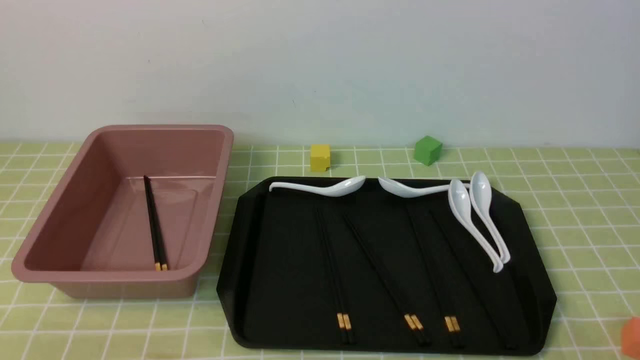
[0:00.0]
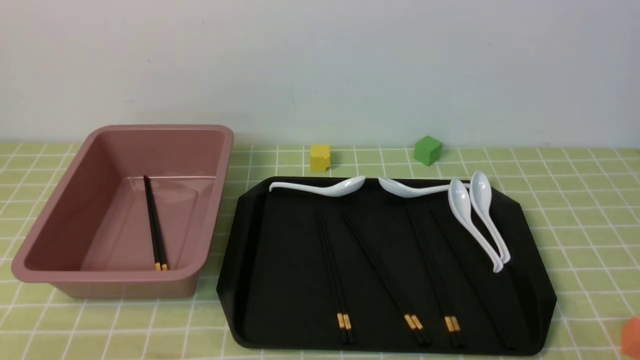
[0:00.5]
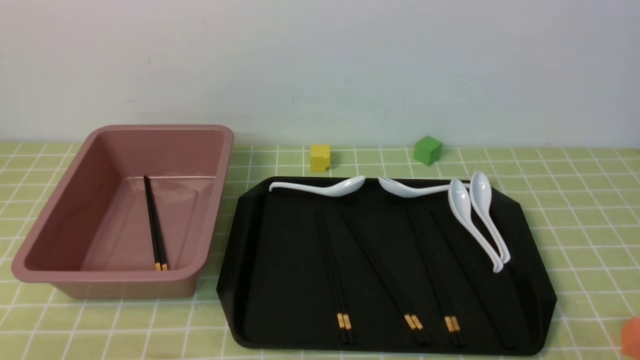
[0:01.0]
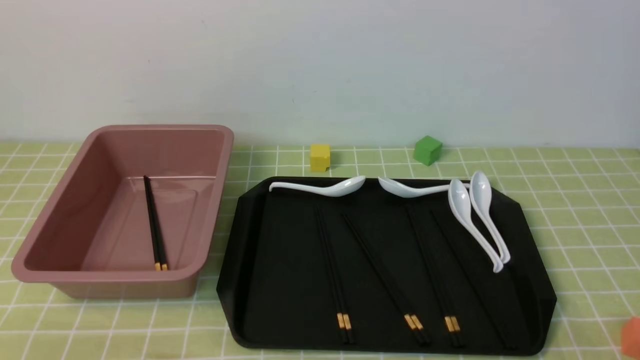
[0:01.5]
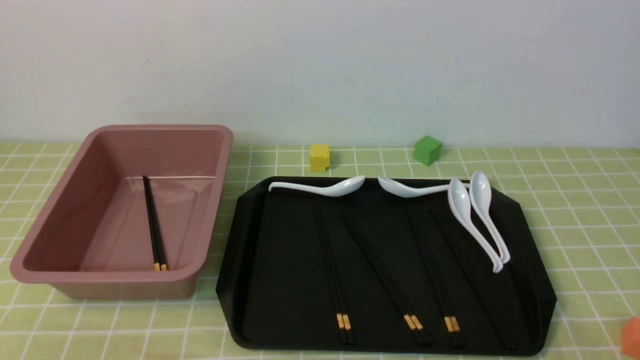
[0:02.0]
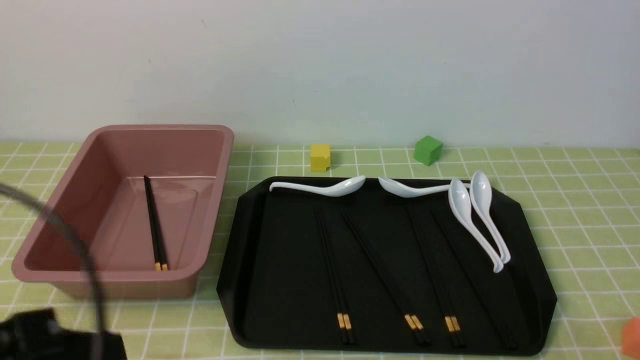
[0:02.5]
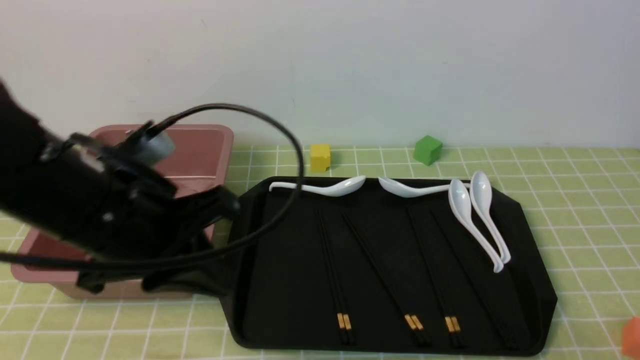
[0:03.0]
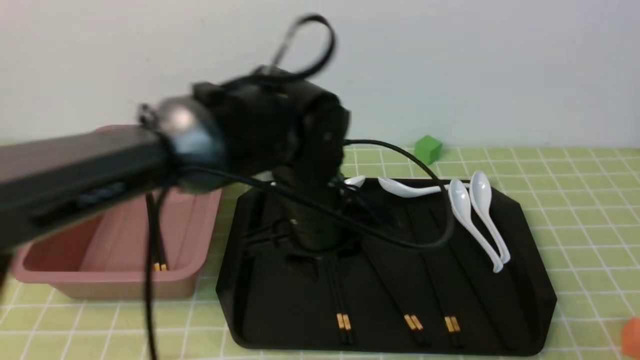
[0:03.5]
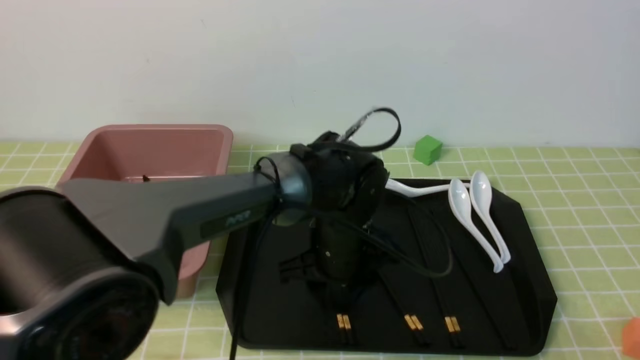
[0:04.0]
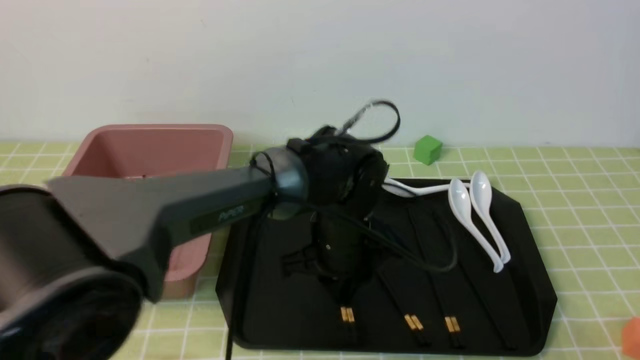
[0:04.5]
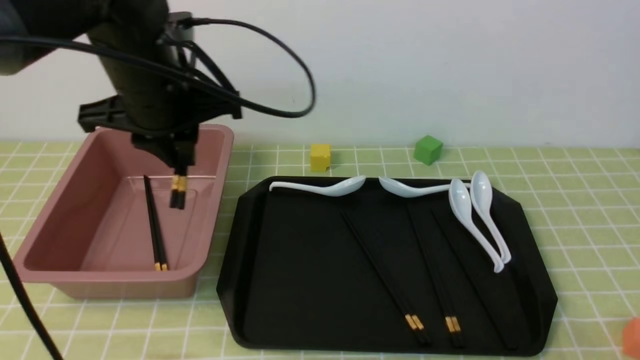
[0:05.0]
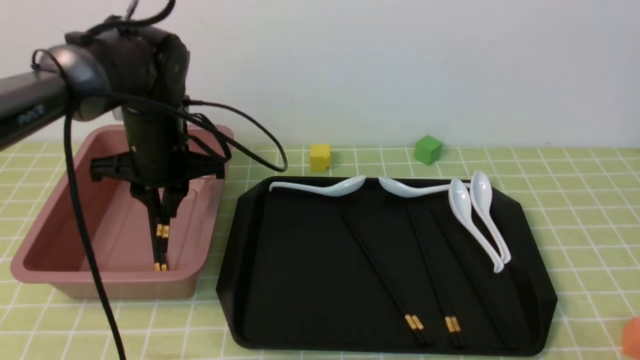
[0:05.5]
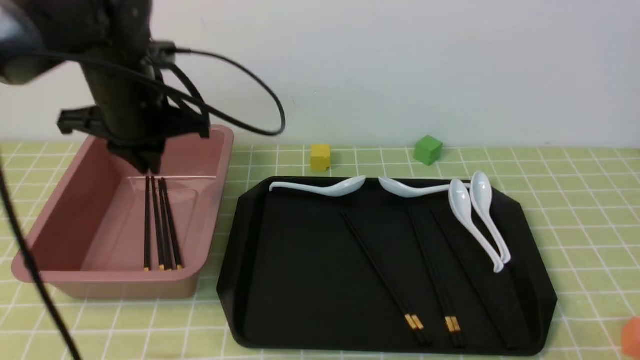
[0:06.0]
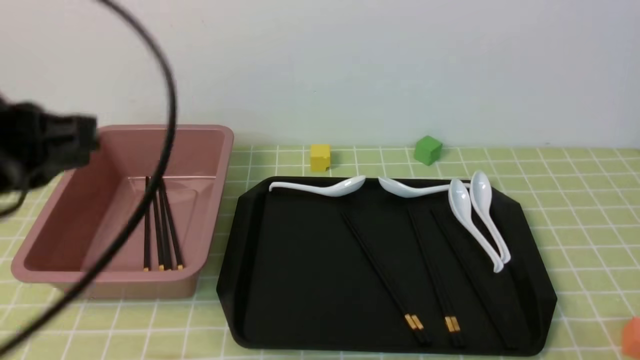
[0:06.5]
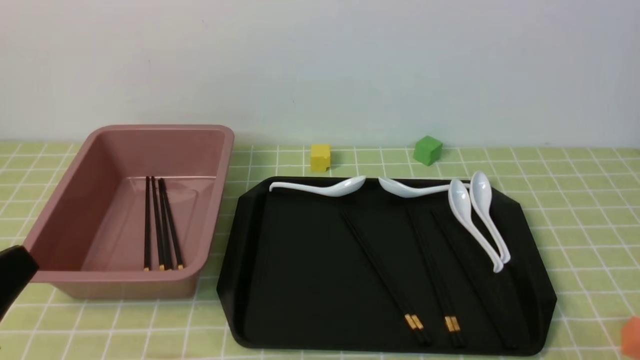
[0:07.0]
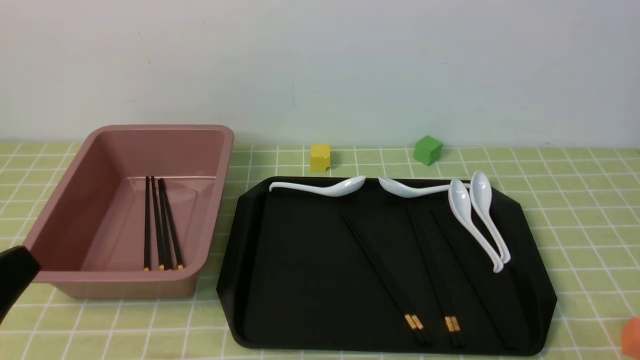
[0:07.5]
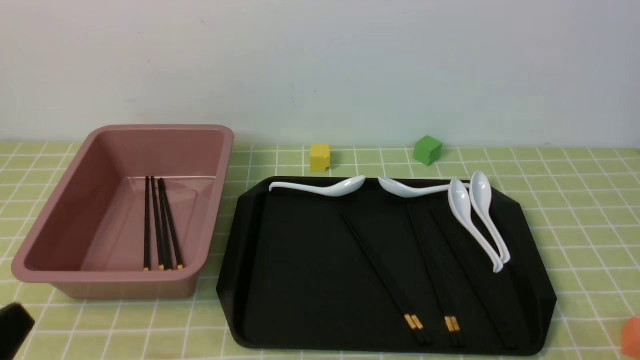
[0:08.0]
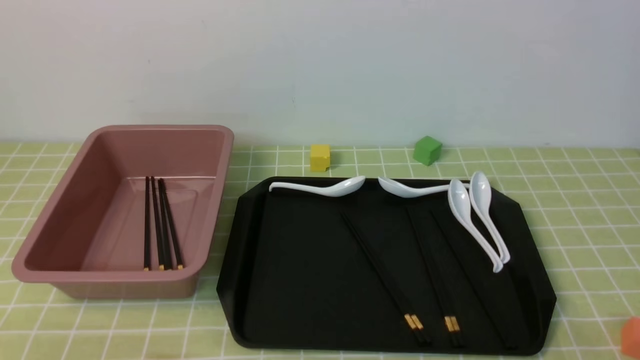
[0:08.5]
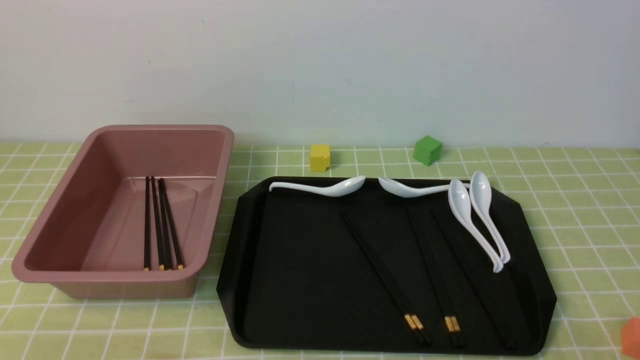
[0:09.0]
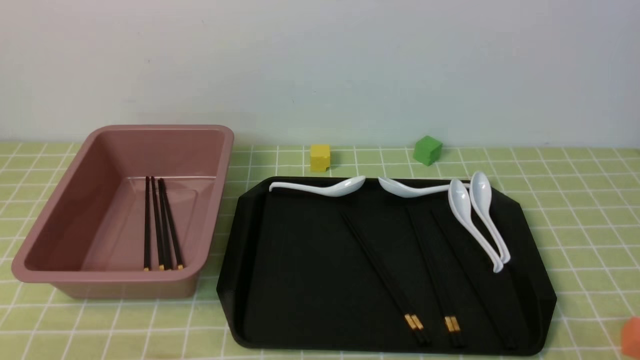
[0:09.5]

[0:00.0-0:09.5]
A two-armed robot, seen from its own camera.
Step, 0:00.0 to 0:04.5: use the left arm to grab a pair of chopsticks.
Step, 0:05.0 to 0:05.5: use the left arm to put the chopsticks into the lunch box.
0:02.0 to 0:04.0: The left gripper goes roughly 40 cm forward and to the right, and opens.
0:04.0 to 0:05.5: The left gripper travels to the left and upward by approximately 20 cm, and closes up.
0:05.5 to 0:07.5: The left gripper goes roughly 30 cm backward, and closes its fingers.
0:07.5 to 0:09.5: The left gripper shifts some 10 cm downward.
